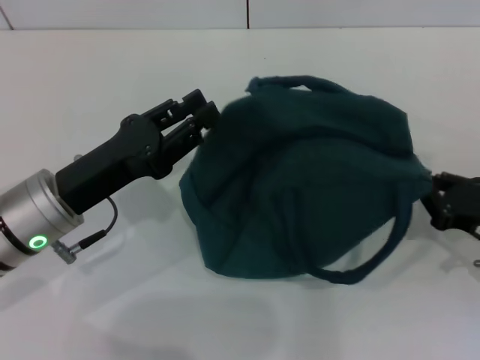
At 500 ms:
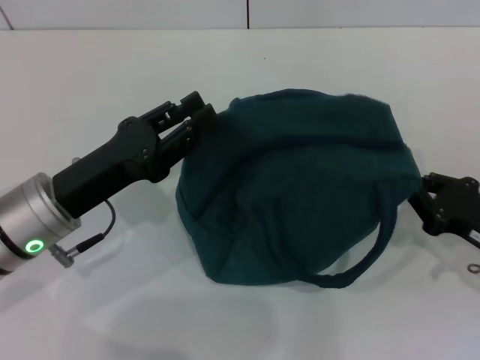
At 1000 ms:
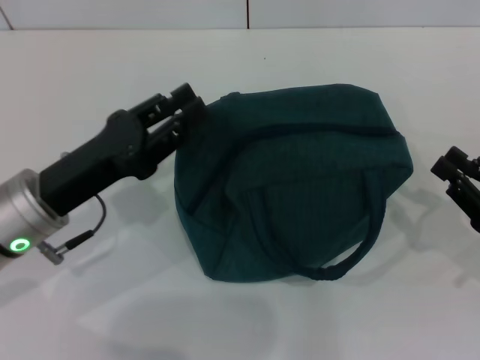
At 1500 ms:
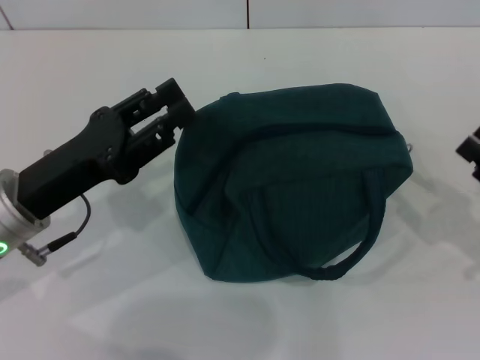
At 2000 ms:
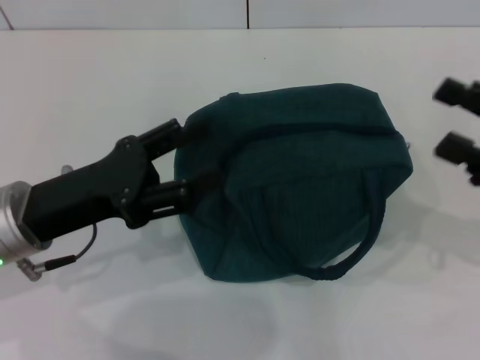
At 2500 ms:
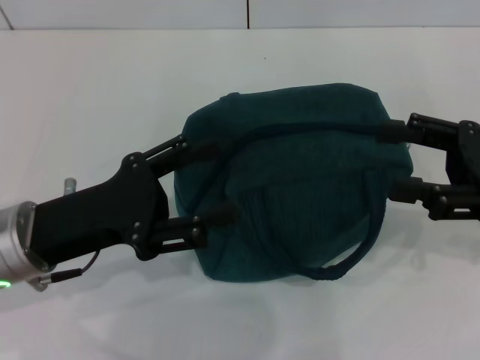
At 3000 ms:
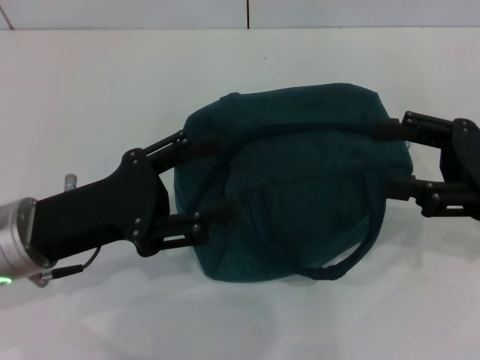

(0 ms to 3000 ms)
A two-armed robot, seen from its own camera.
Step, 0 ms - 500 ms: Zip up the lunch bag with your right hand.
0 ms - 1500 ms: The right gripper changes place by about 5 cm.
1500 ms - 3000 ms: The right gripper goes approximately 10 cm upward and forward, and opens up, while the left gripper opens up.
